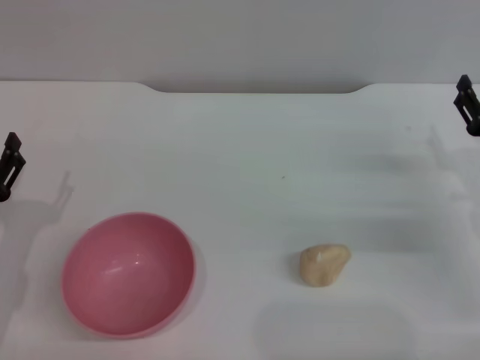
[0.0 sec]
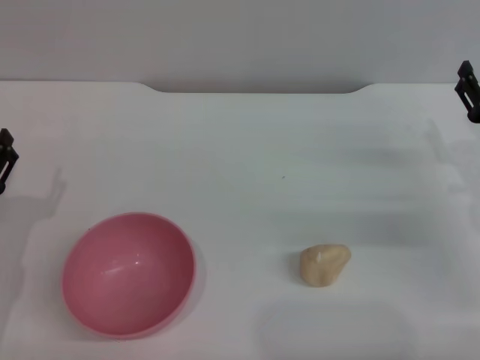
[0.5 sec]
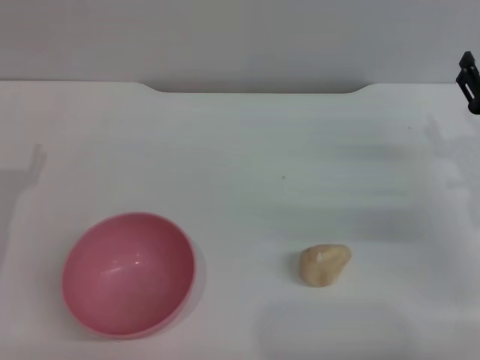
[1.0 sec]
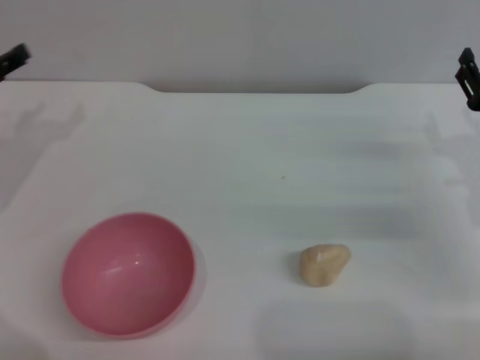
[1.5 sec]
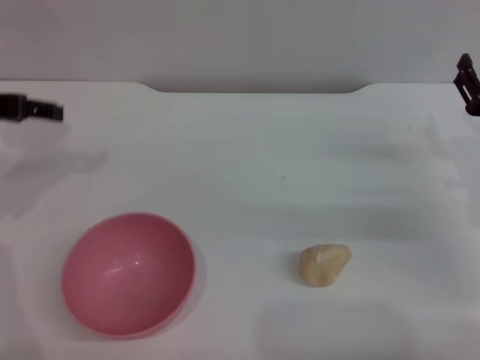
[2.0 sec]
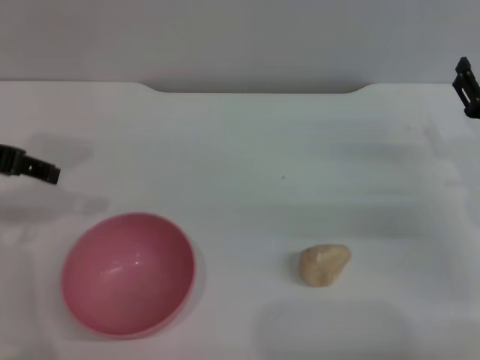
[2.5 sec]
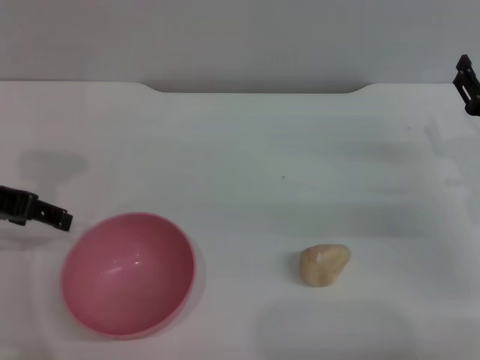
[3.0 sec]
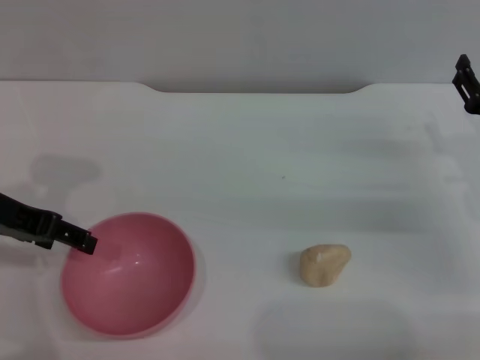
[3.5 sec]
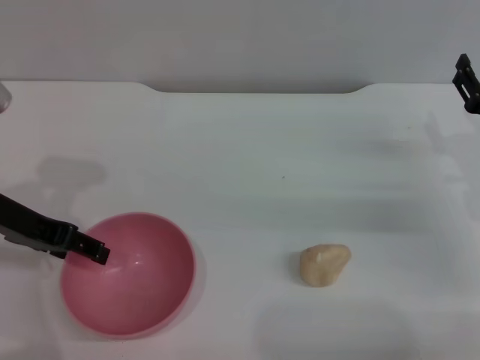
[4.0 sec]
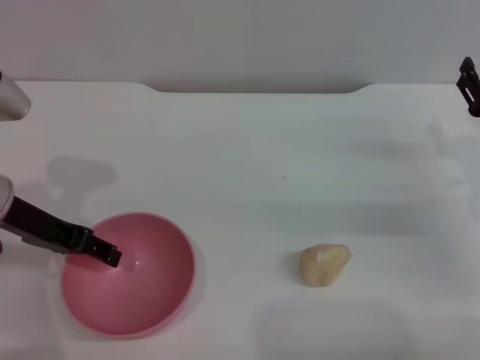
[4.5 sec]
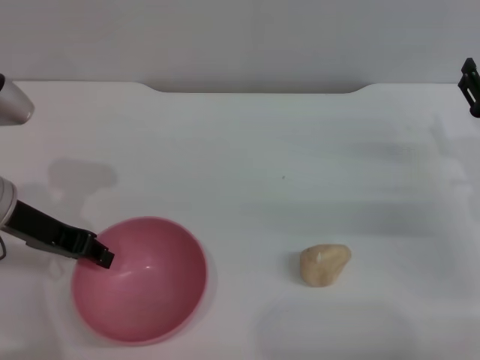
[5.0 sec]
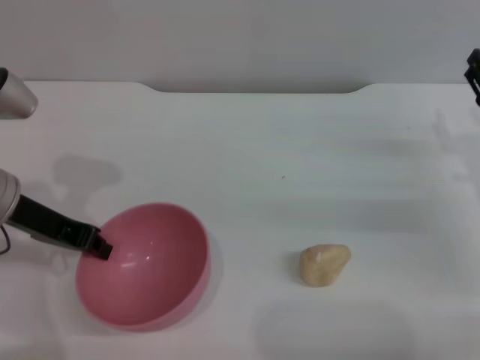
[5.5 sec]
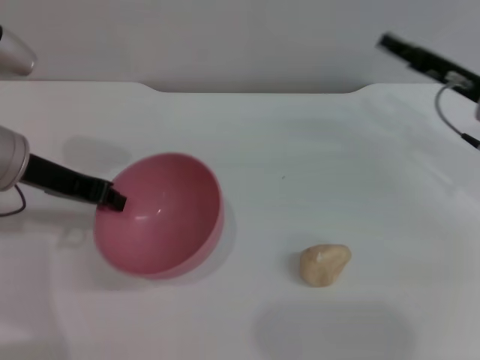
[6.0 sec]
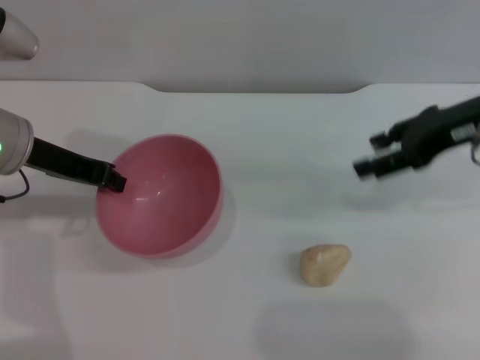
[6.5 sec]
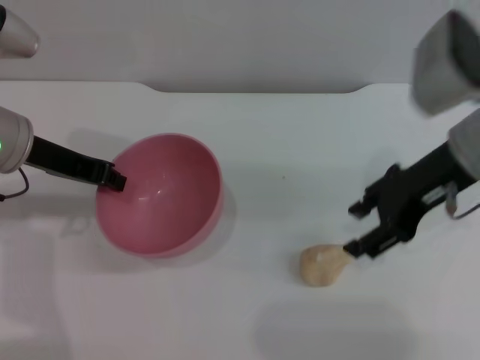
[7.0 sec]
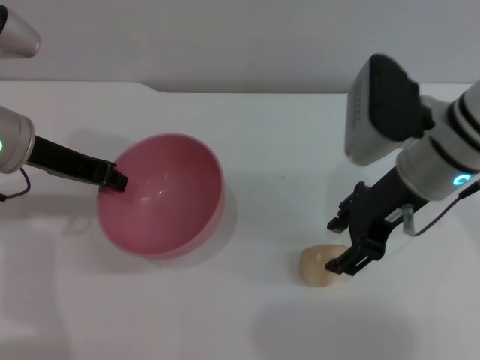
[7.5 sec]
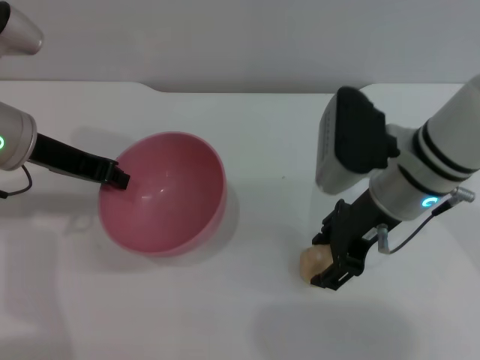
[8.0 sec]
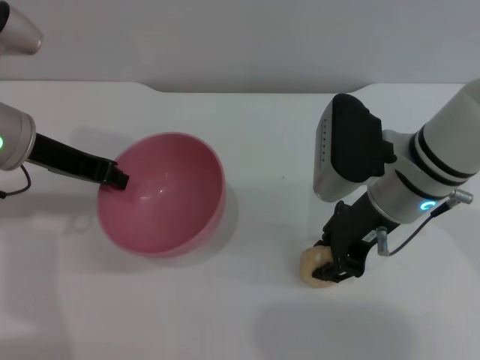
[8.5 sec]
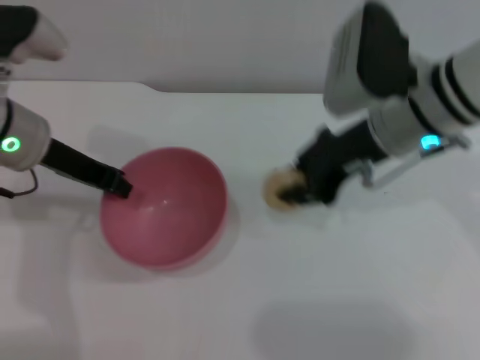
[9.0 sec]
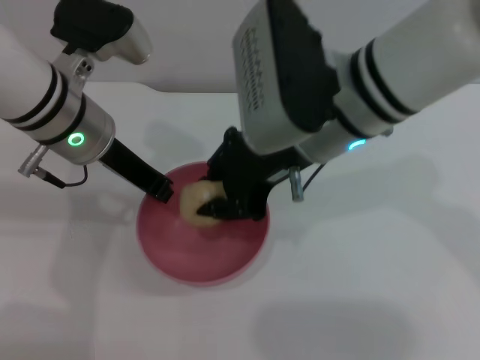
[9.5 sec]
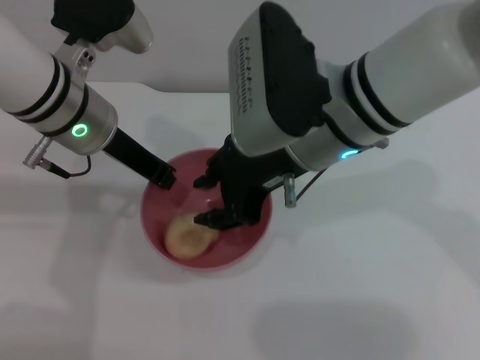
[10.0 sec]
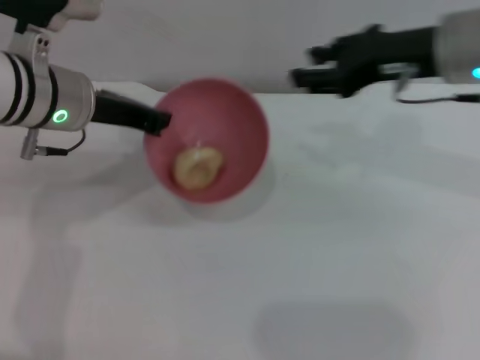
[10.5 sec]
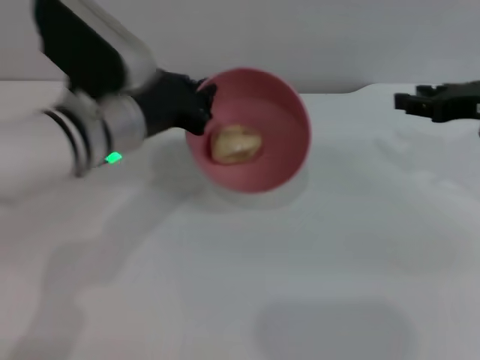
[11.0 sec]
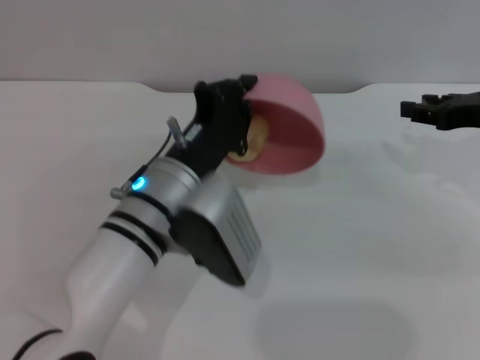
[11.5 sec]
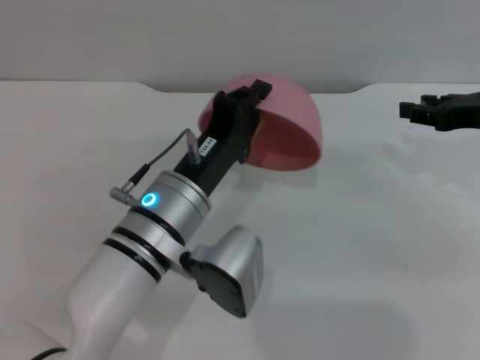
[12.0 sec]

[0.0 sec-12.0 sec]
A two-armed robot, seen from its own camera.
Task of the whole recording: put the egg yolk pastry into the pink bowl and pour it out repeatedly.
Step, 0.0 sec to 5.5 sec: Pick up the bowl with the left gripper.
Step, 6.5 sec to 8.5 sec: Pick up the egg yolk pastry with the right gripper.
Step, 9.0 sec to 10.0 sec: Place the egg yolk pastry into the bowl.
0.0 sec to 2.0 sec: The left gripper is displaced upward and forward by roughly 20 cm.
2.0 sec to 4.0 sec: The left gripper changes place by approximately 10 cm.
4.0 sec to 6.0 sec: The left gripper closes. The right gripper goes about 10 cm forward and upward.
6.0 sec to 8.0 sec: The right gripper shifts approximately 15 cm to the left.
8.0 sec to 10.0 sec: The right gripper moves to the left and upward, approximately 10 cm, and closes its fingers. Meanwhile the left gripper goes some 10 cm to the right.
10.0 sec to 12.0 sec: The right gripper shifts some 25 cm to the right. Meanwhile the left gripper travels backward, downward and to the right by some 15 cm.

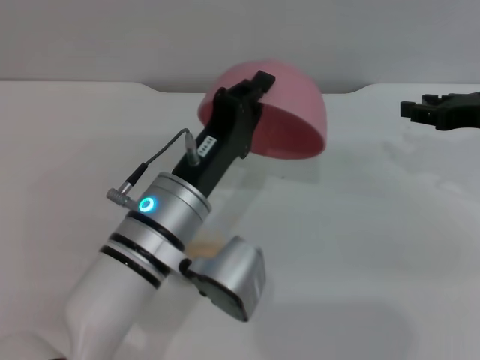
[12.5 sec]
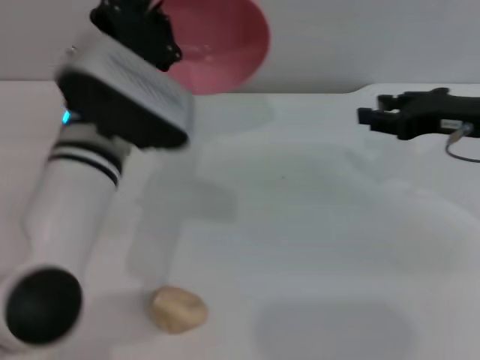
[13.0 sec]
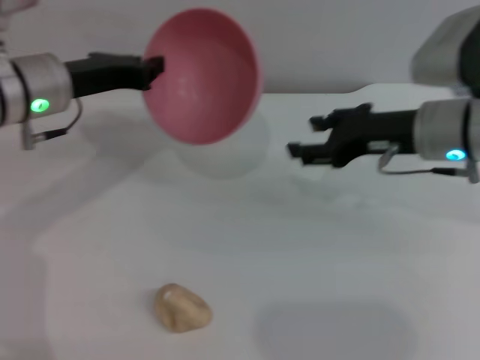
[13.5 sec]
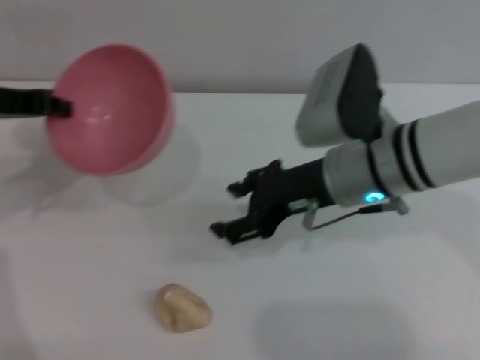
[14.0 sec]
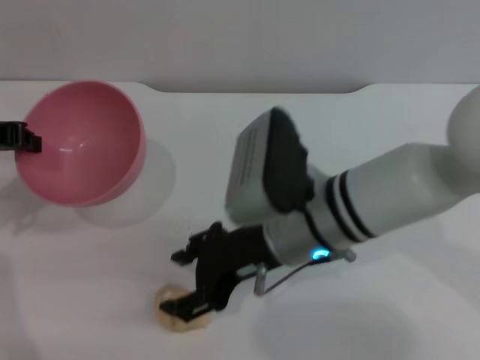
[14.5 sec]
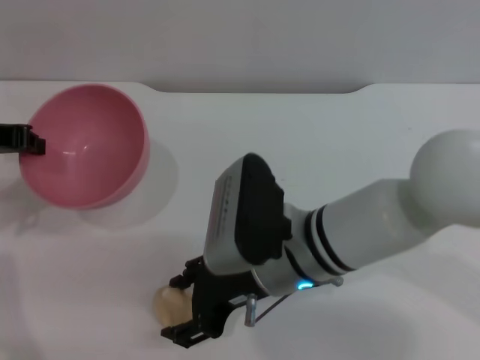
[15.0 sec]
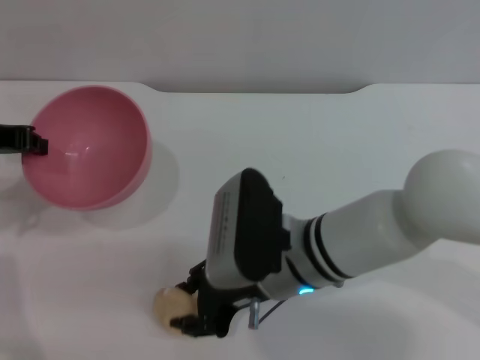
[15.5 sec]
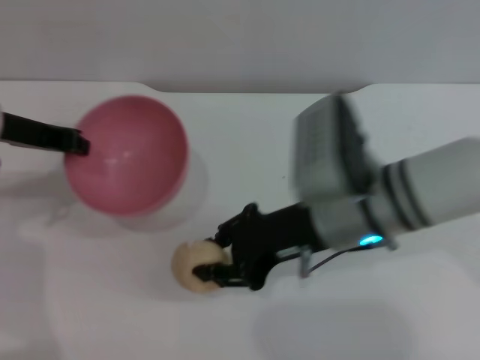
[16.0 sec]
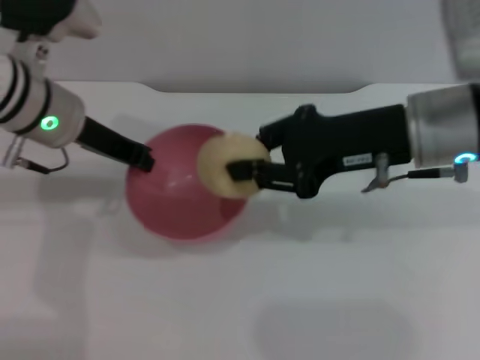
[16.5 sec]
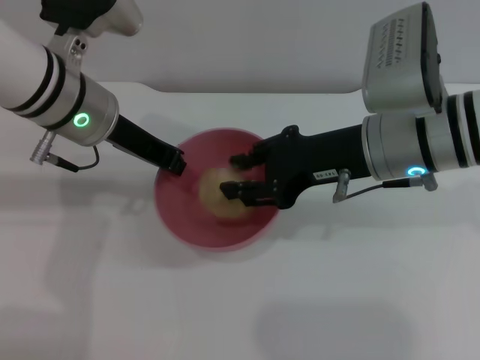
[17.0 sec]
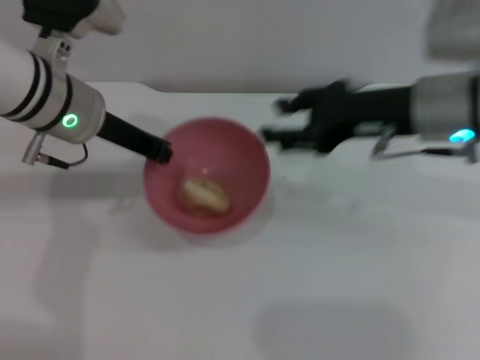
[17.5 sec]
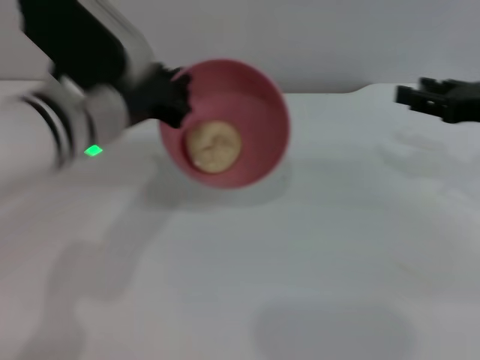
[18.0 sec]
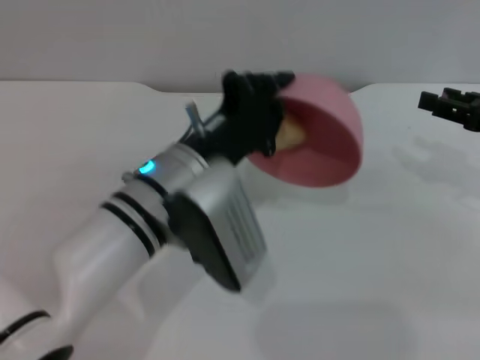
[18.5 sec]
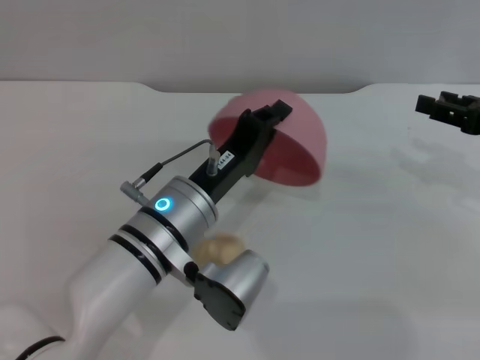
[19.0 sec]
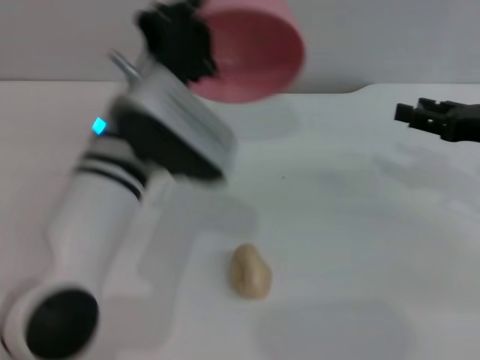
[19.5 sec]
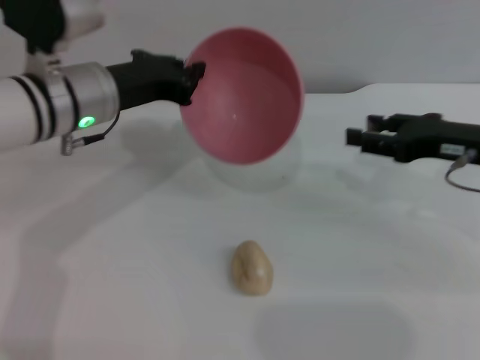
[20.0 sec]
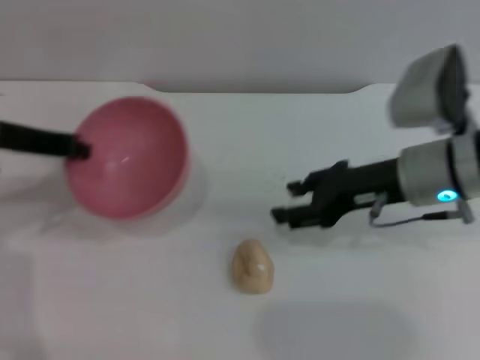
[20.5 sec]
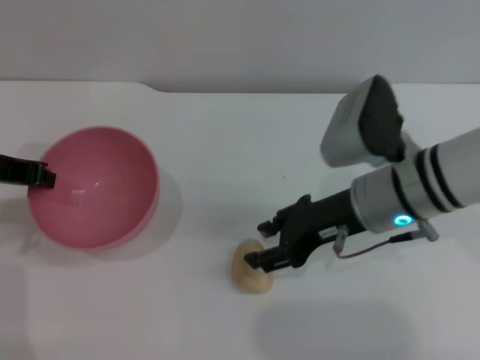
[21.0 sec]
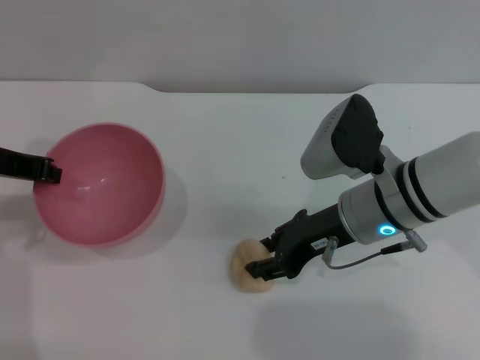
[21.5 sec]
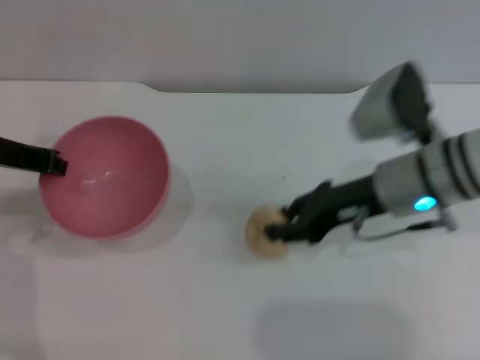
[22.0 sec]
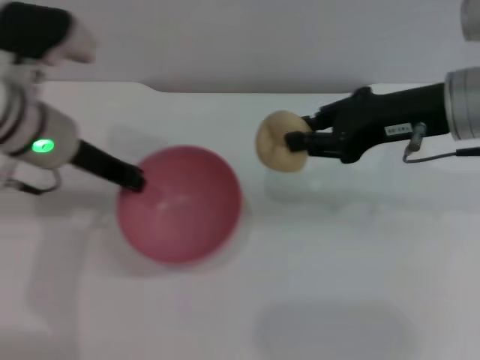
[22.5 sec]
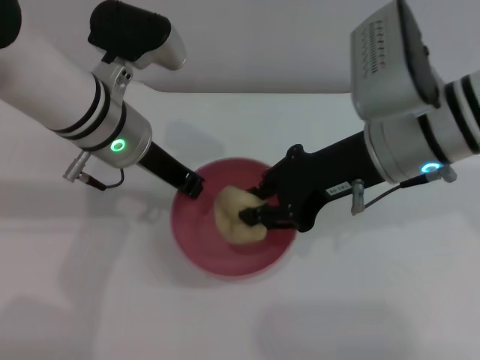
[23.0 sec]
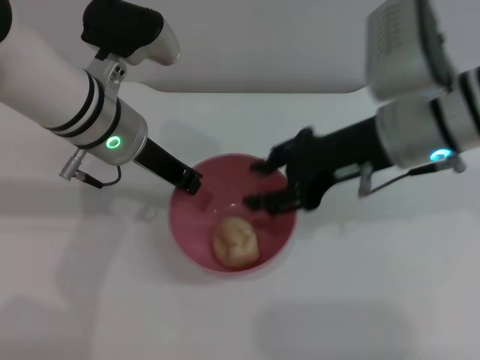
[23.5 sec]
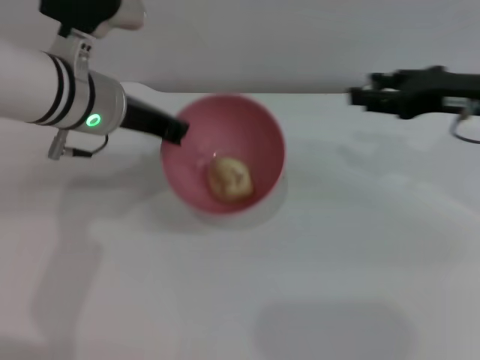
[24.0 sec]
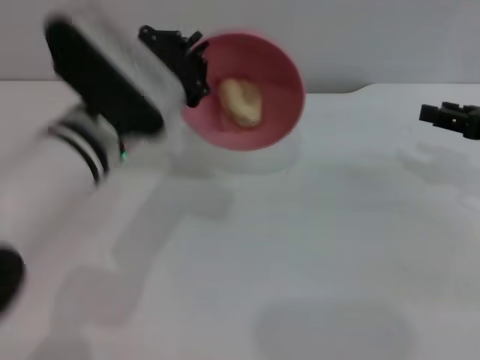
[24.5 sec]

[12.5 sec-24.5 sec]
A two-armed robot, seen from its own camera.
Task of the whole recording: put the egg yolk pastry into the pink bowl and pour it out repeatedly.
Step, 13.0 sec to 16.0 sec: Pick up the egg yolk pastry with the right gripper.
Step, 16.5 sec to 17.0 sec: Place the egg yolk pastry into the bowl.
Step, 17.5 sec to 19.0 sec: Pour the egg yolk pastry out of bowl.
Step, 19.5 sec to 22.0 sec: Pick up the egg yolk pastry with the right gripper.
Step, 22.5 sec to 23.5 sec: Place the egg yolk pastry into the bowl.
12.5 sec to 14.5 sec: The left gripper travels to the left and upward by about 25 cm, while the right gripper heads to the left, covering approximately 25 cm, and opens up.
14.5 sec to 16.5 sec: The right gripper heads to the right and upward, covering about 15 cm, and closes up. The left gripper moves to the right, some 10 cm.
16.5 sec to 18.5 sec: The left gripper goes about 15 cm to the right, backward and downward; the right gripper moves to the right, some 15 cm, and opens its fingers.
18.5 sec to 20.5 sec: Both grippers travel together to the left, about 15 cm.
20.5 sec to 22.5 sec: The right gripper shifts about 5 cm upward, and closes up, while the left gripper shifts some 5 cm to the right.
22.5 sec to 24.5 sec: The left gripper travels to the right by approximately 5 cm. Meanwhile the right gripper is displaced to the right and downward by about 15 cm, and opens its fingers.

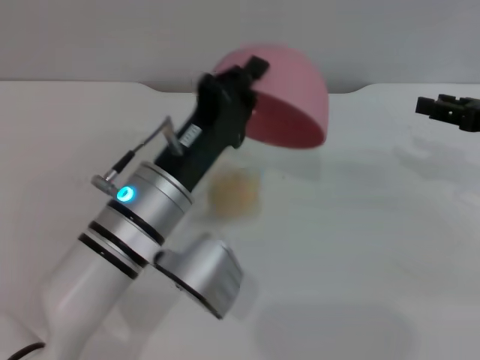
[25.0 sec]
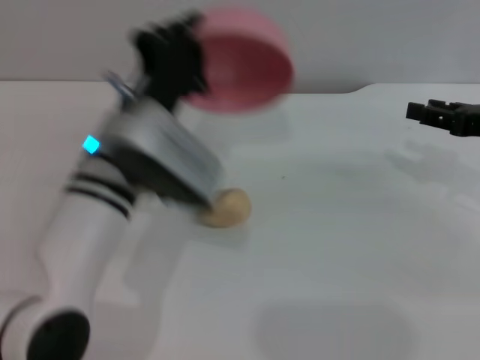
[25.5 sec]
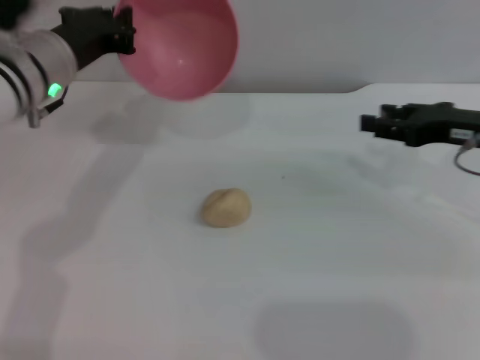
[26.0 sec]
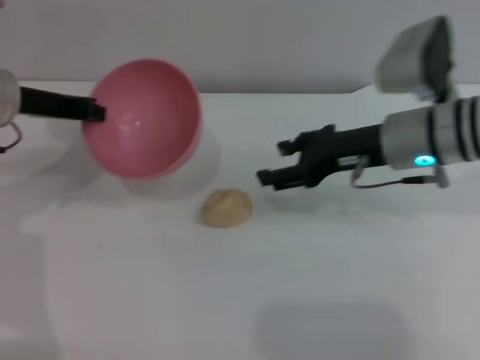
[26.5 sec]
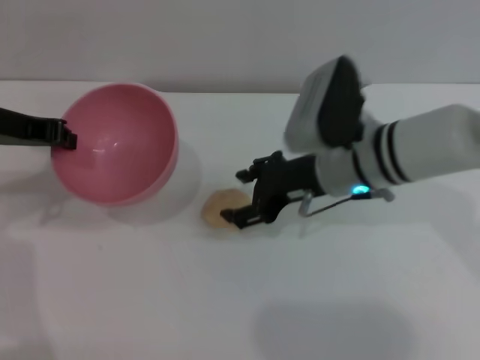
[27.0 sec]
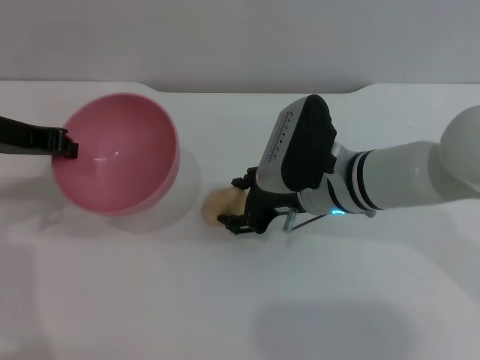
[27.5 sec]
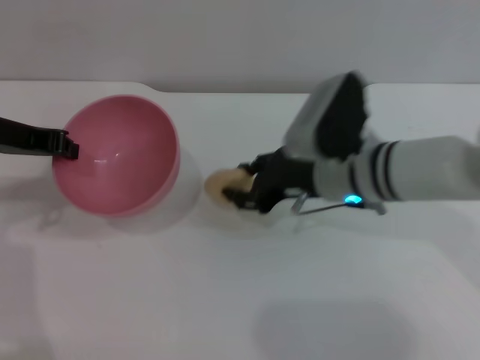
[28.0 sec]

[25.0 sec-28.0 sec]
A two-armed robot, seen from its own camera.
Task of the whole recording: put the egg yolk pastry into the pink bowl and pour it out repeatedly.
25.0 sec to 26.5 sec: The right gripper is displaced to the left by some 15 cm. The left gripper heads to the left, forward and upward, covering about 20 cm.
26.5 sec to 28.0 sec: The right gripper goes about 5 cm to the left.
